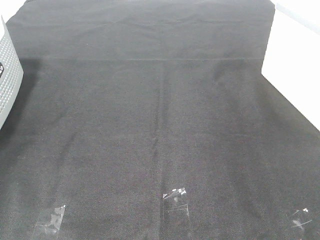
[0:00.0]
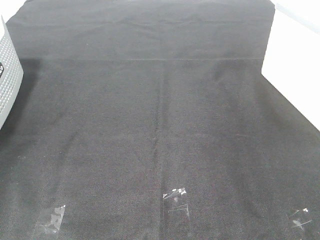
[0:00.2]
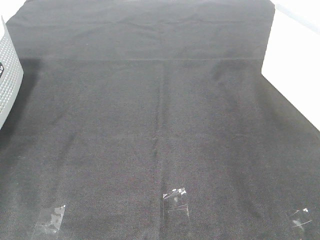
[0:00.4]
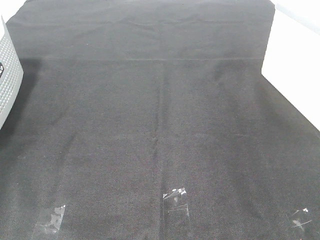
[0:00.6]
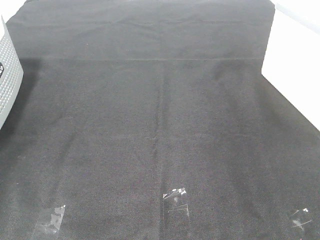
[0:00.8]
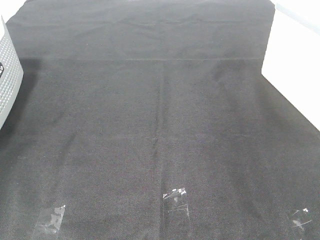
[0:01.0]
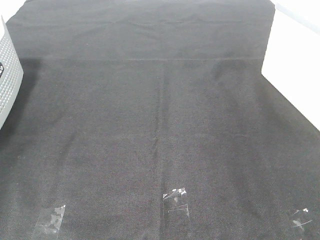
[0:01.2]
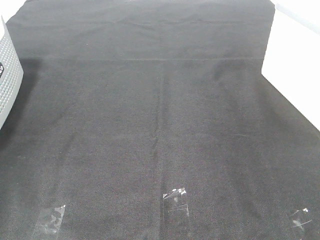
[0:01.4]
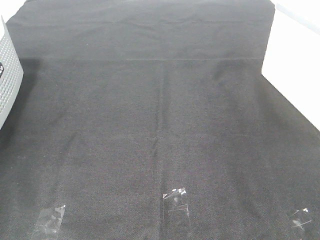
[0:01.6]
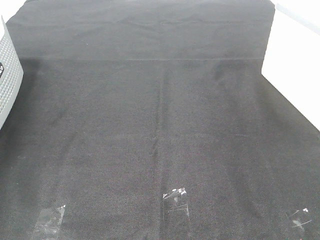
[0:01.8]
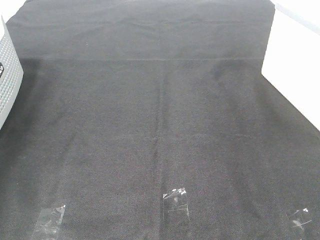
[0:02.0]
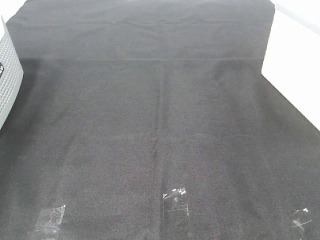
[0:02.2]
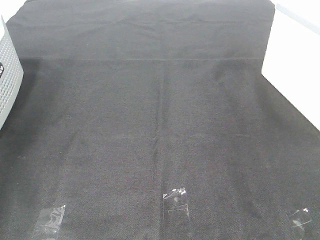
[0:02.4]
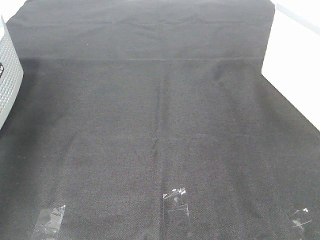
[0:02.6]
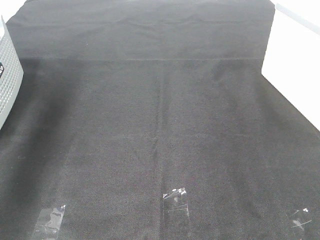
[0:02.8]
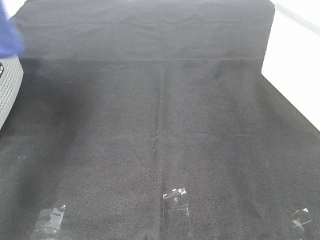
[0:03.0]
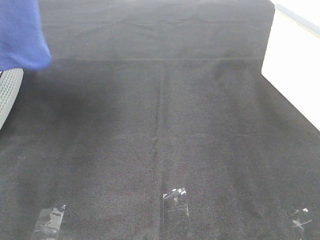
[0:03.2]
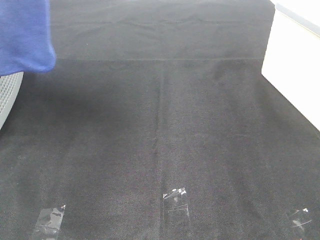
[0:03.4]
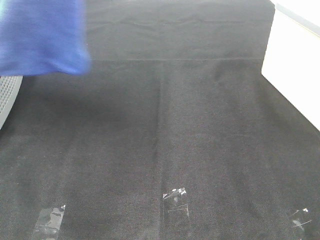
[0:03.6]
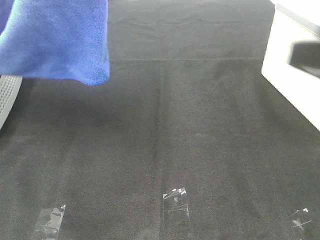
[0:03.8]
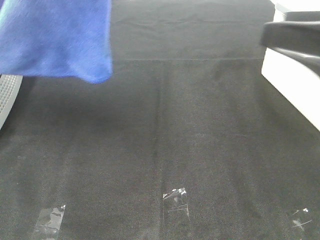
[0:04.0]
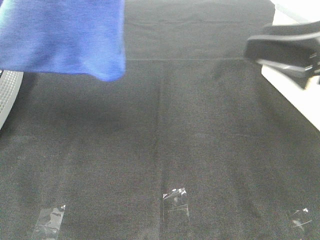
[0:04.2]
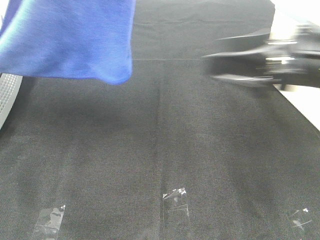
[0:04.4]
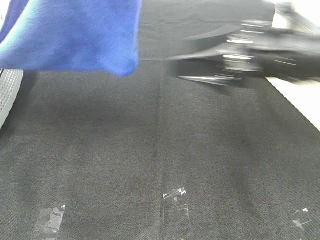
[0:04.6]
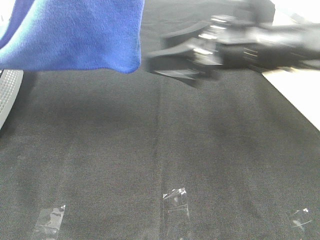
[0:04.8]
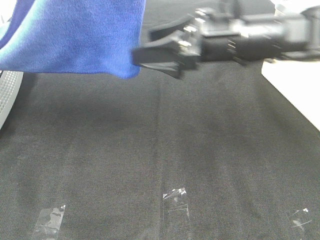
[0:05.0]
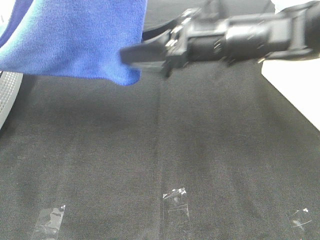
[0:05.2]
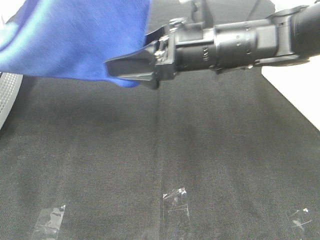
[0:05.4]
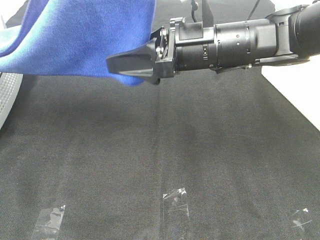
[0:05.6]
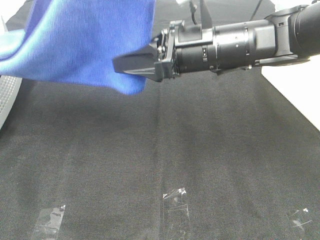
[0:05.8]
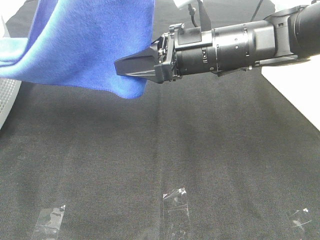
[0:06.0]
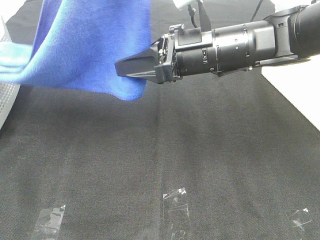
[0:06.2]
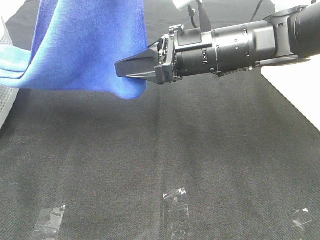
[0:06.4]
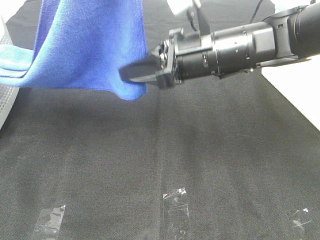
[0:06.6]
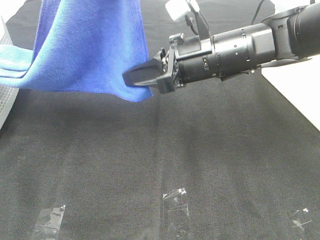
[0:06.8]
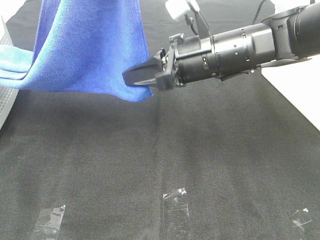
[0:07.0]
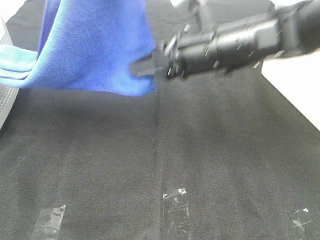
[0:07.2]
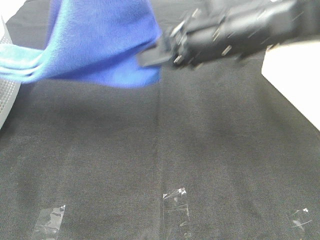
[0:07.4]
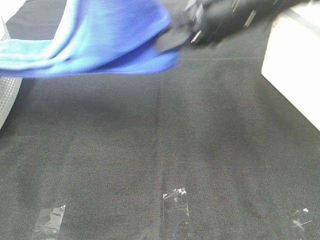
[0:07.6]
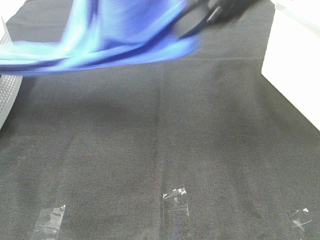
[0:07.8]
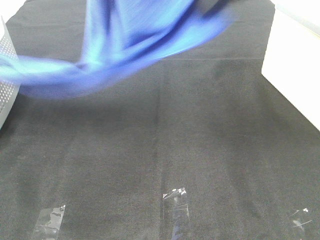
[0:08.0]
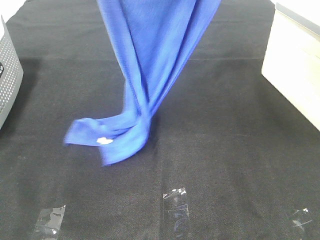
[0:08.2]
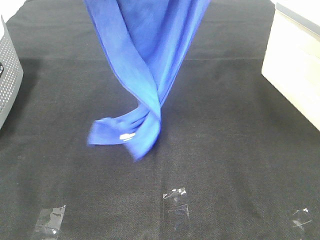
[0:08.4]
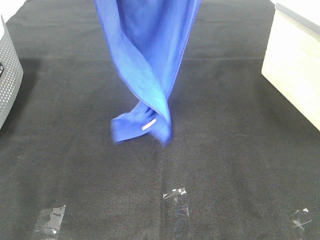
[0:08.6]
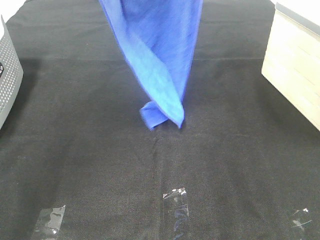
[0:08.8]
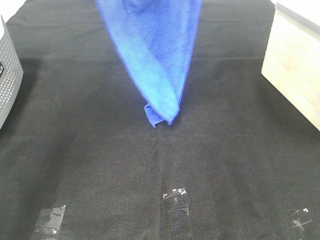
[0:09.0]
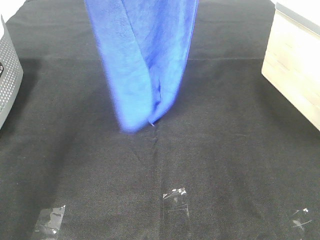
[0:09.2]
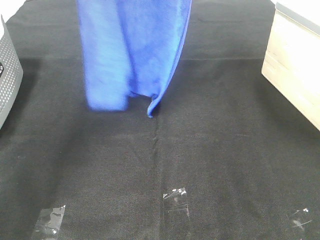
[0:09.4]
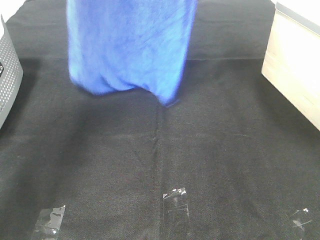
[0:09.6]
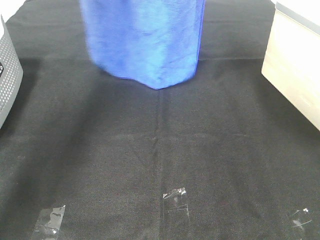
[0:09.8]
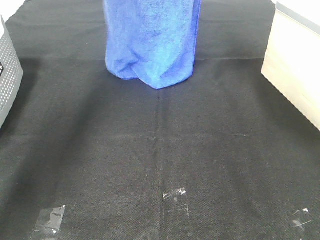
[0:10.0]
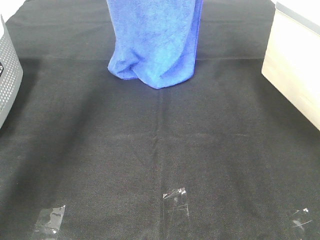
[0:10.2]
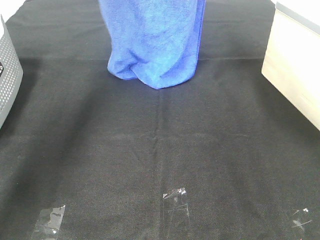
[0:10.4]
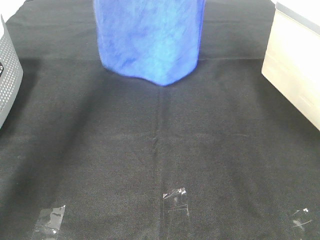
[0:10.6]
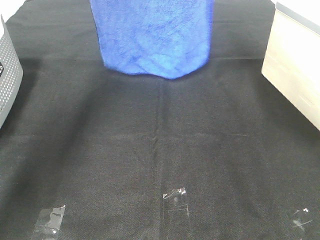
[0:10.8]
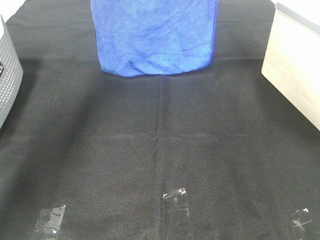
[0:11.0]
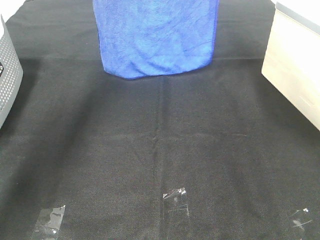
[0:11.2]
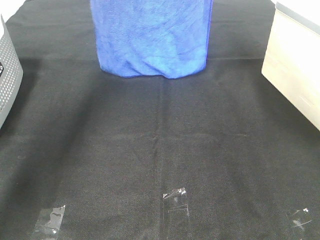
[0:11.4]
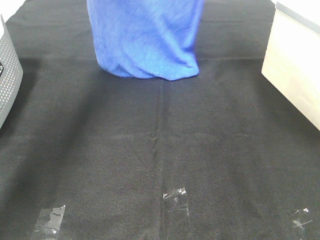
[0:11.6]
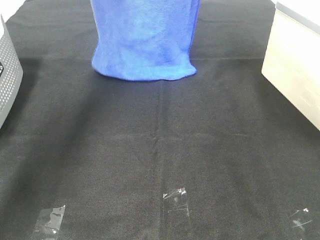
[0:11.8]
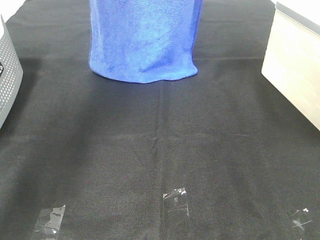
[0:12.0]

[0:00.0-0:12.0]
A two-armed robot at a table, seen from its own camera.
Task of the whole recording: Remove the towel and place it.
Step, 0:02.6 to 0:06.4: Right hand: grab a corner of the blue towel and straighten it.
0:01.6 to 0:03.0: The left gripper travels upward, to the right and backward by some 30 cm.
0:03.0 to 0:04.4: The left gripper travels to the right by roughly 15 cm, while the right gripper travels forward by roughly 25 cm.
0:04.4 to 0:06.0: The right gripper is displaced to the left and forward by approximately 15 cm, and closes its fingers.
0:06.0 to 0:07.6: The right gripper moves upward, approximately 10 cm, and closes.
0:07.6 to 0:09.0: The right gripper travels upward and forward by roughly 20 cm. Meanwhile the left gripper heads forward and to the left, covering about 15 cm.
0:09.0 to 0:10.4: The grippers both shift forward by some 15 cm.
0:10.4 to 0:12.0: The left gripper shifts by approximately 5 cm; the right gripper moves some 5 cm.

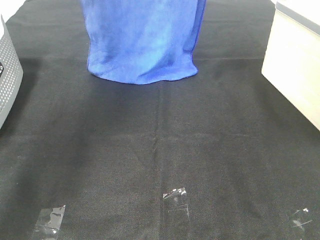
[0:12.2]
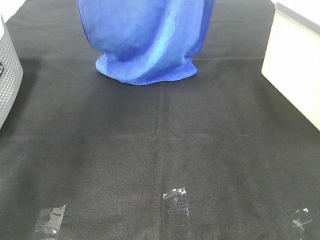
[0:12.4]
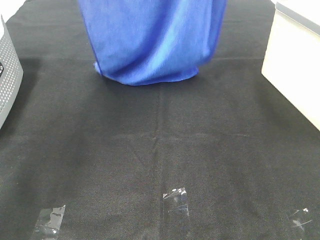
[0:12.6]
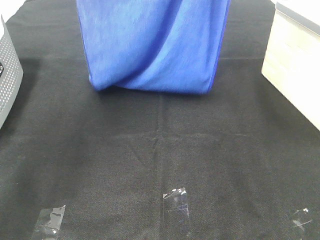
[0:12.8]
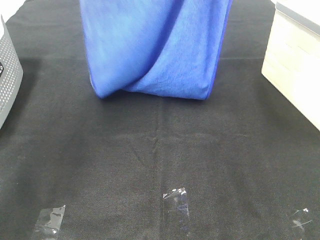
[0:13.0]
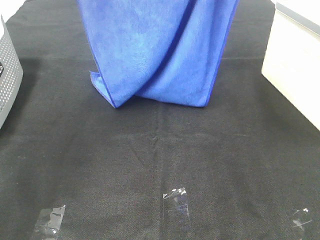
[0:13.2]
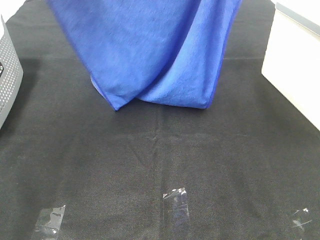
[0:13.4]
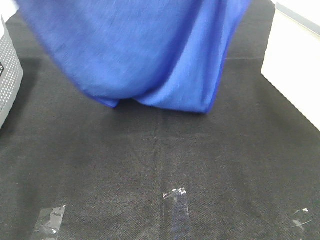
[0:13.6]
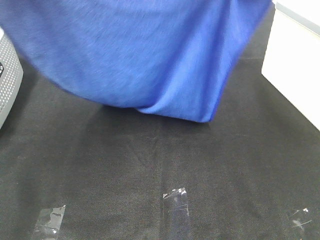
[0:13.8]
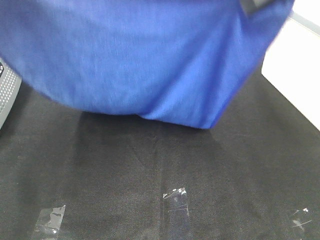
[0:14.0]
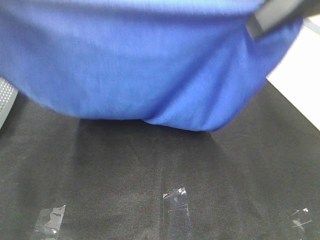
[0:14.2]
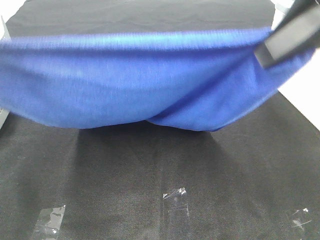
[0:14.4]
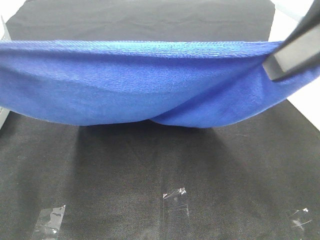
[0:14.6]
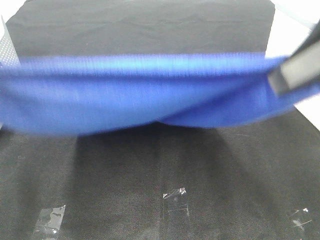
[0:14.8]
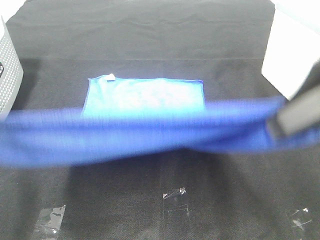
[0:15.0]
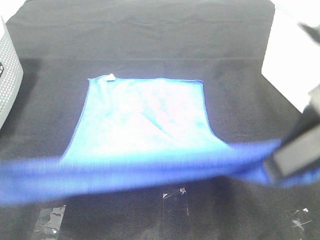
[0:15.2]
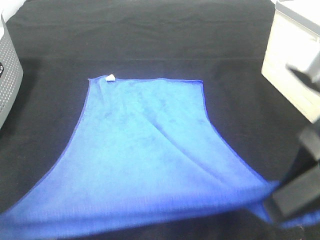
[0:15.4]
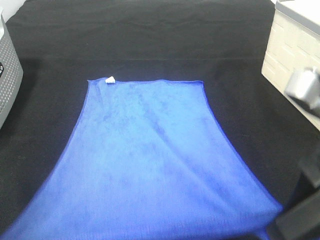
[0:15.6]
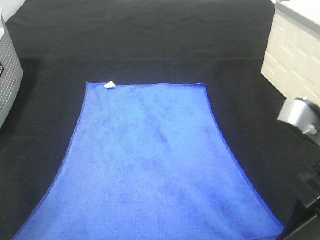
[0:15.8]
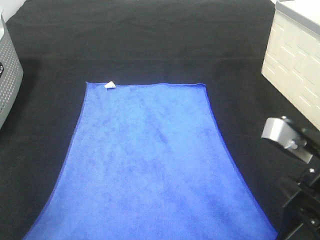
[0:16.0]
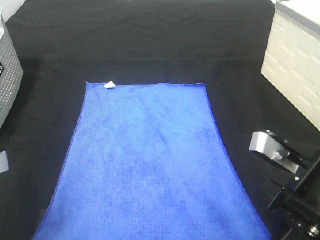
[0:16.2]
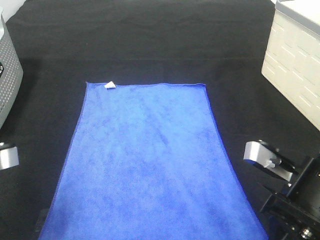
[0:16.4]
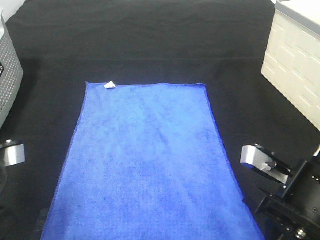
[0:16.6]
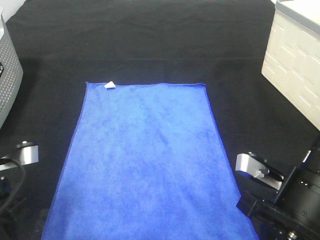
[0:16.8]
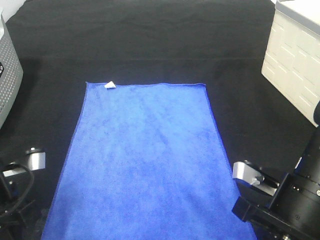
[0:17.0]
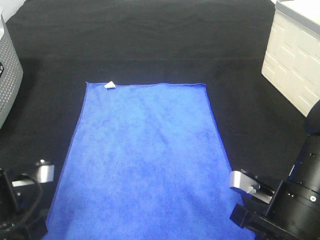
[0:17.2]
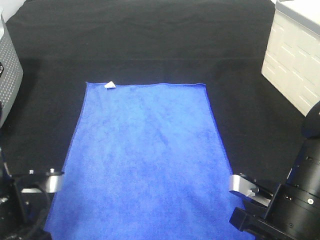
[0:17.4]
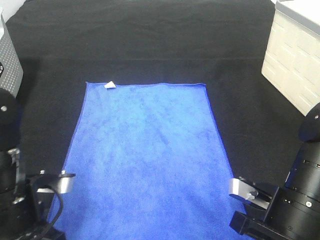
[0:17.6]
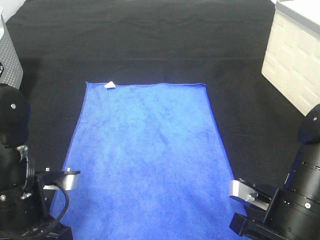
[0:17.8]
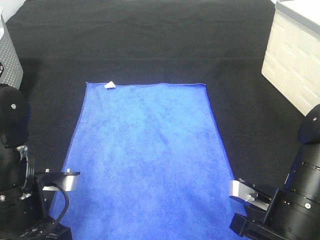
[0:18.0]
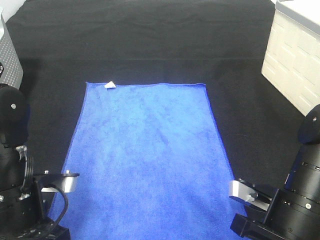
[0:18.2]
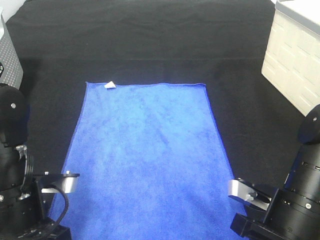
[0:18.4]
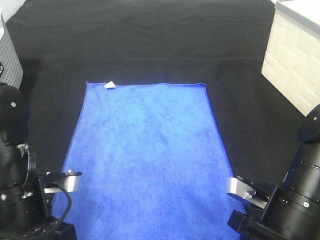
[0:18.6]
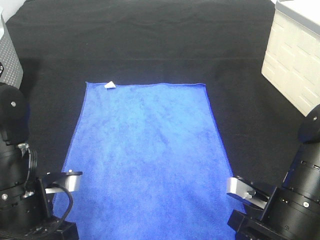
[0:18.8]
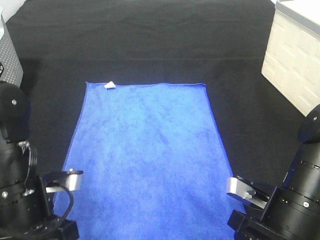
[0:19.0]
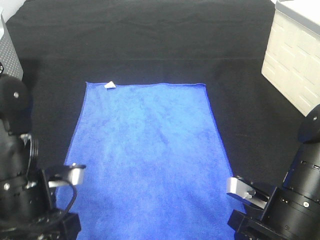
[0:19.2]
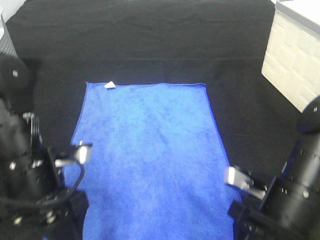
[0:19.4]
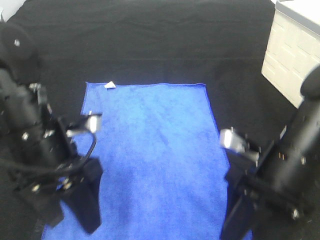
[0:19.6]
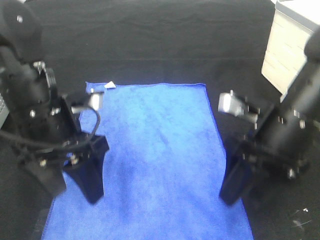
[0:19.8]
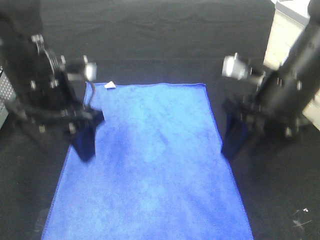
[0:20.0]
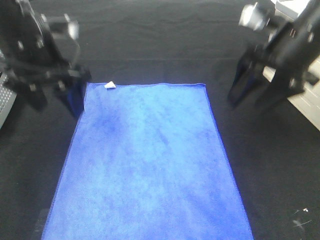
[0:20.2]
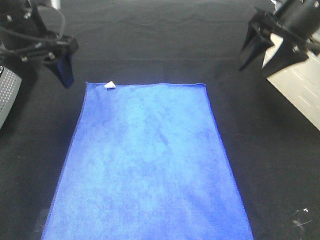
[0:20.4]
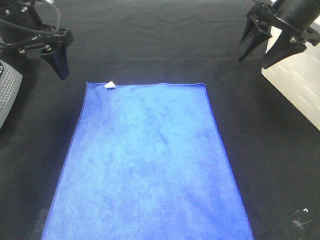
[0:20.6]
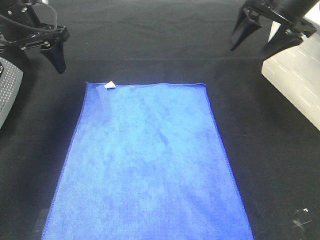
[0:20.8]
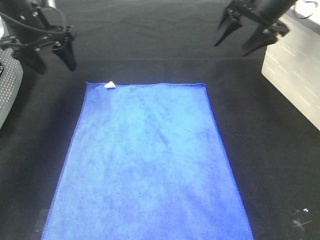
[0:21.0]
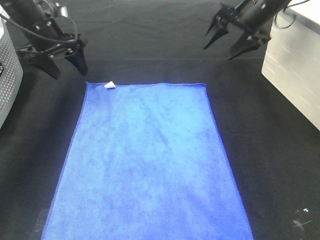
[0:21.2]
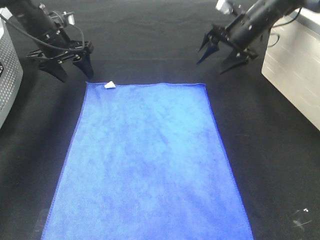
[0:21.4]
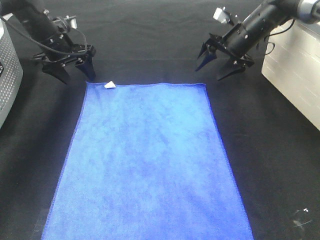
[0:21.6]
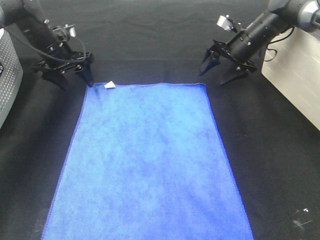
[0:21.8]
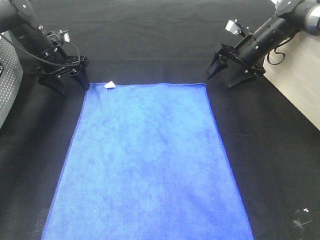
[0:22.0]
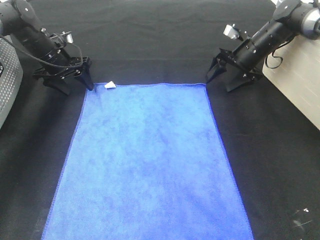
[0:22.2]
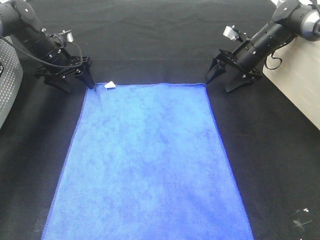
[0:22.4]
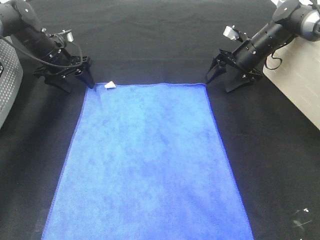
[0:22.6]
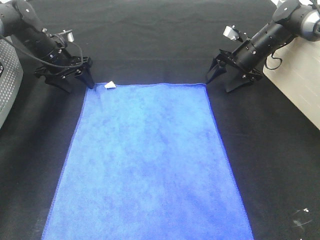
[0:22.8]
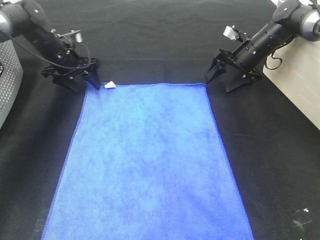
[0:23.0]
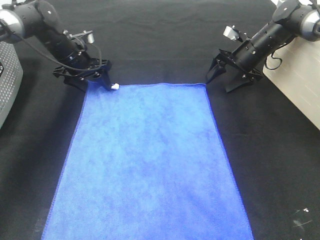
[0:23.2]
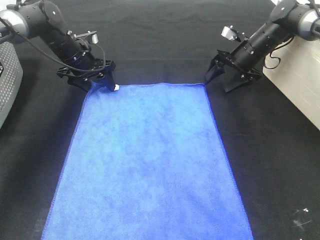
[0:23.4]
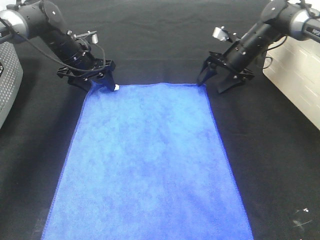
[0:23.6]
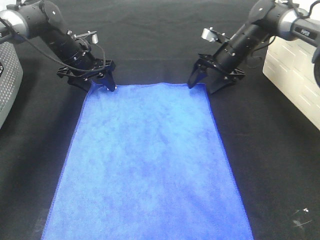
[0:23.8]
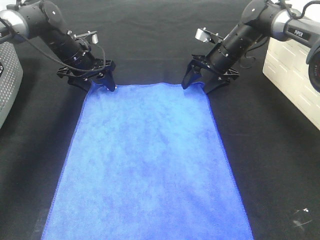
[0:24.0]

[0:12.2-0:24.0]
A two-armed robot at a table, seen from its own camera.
Task of the whole recording: Remove the towel and place it.
Step, 0:14.0 to 0:22.4: Left hand:adjust the blue towel.
Step, 0:14.0 to 0:22.4: Right hand:adjust the blue towel.
0:12.2 to 0:13.6: The grippers both shift backward by approximately 15 cm.
0:13.6 to 0:15.2: Both grippers move downward and backward, approximately 20 cm.
0:15.2 to 0:16.6: Both grippers travel together downward, roughly 10 cm.
0:16.6 to 0:18.2: Both grippers move downward, approximately 5 cm.
0:18.2 to 0:19.6: The left gripper is displaced upward by roughly 5 cm, and opens, while the right gripper shifts by roughly 5 cm, and opens.
0:19.6 to 0:21.0: The left gripper heads forward and to the left, covering approximately 25 cm, while the right gripper heads forward and upward, covering about 30 cm.
0:21.0 to 0:22.6: Both grippers travel together downward and forward, about 15 cm.
0:22.6 to 0:24.0: The left gripper is displaced to the right by approximately 5 cm, while the right gripper moves to the left, approximately 5 cm.
